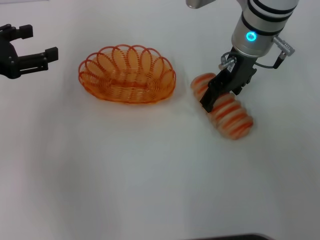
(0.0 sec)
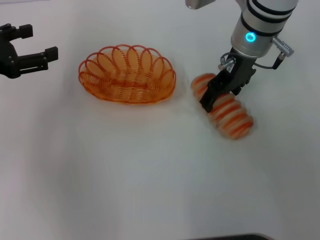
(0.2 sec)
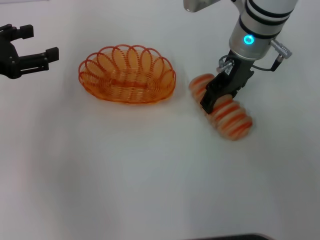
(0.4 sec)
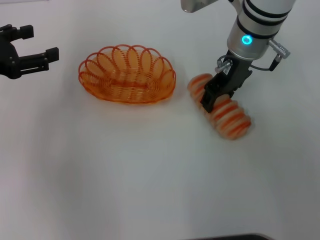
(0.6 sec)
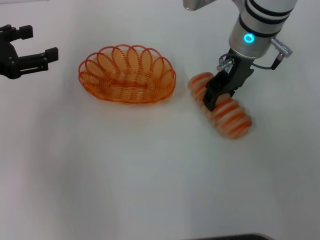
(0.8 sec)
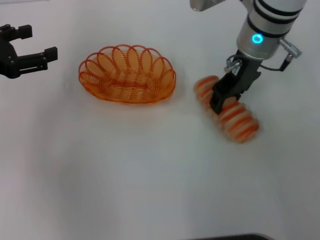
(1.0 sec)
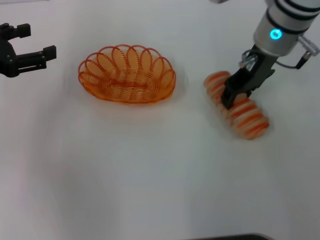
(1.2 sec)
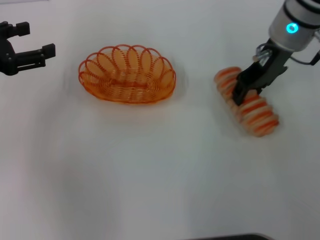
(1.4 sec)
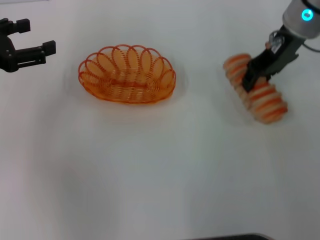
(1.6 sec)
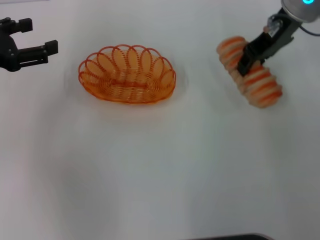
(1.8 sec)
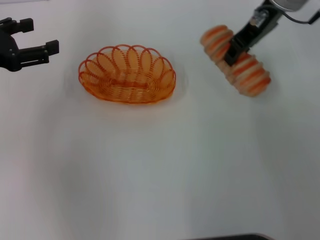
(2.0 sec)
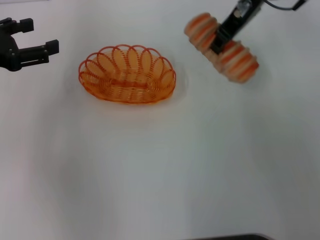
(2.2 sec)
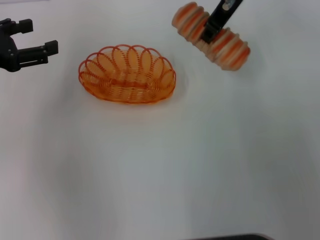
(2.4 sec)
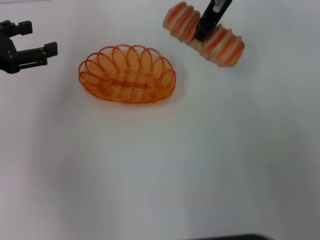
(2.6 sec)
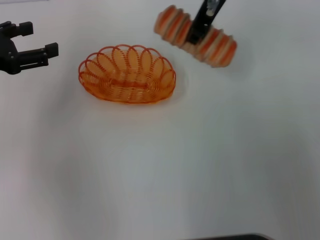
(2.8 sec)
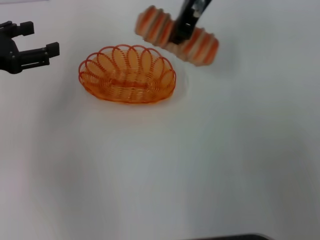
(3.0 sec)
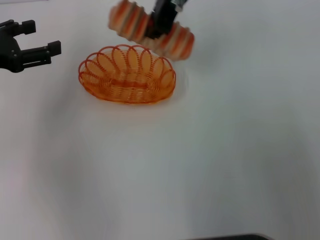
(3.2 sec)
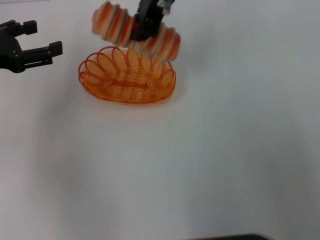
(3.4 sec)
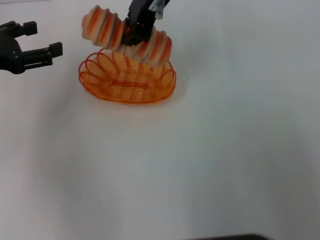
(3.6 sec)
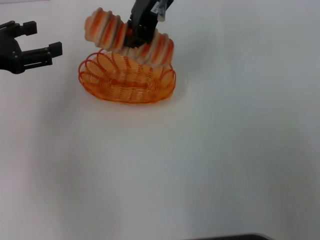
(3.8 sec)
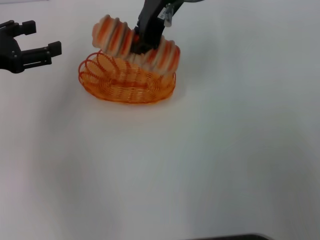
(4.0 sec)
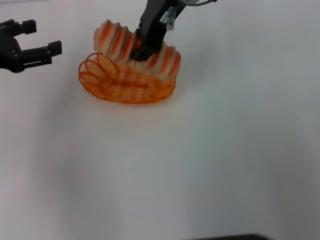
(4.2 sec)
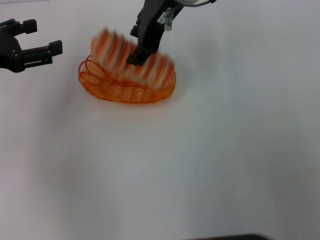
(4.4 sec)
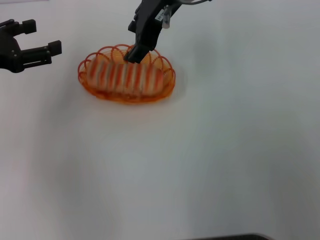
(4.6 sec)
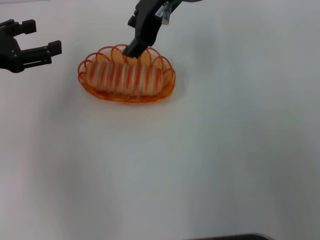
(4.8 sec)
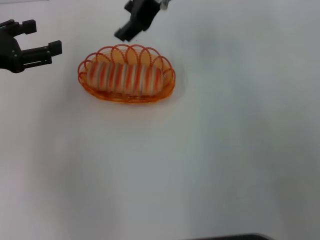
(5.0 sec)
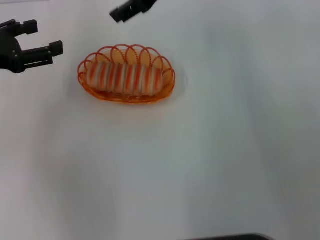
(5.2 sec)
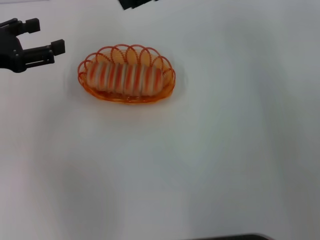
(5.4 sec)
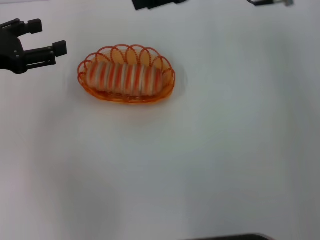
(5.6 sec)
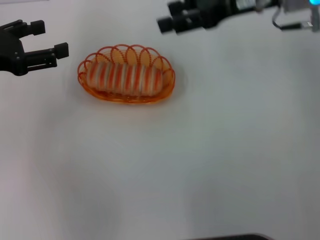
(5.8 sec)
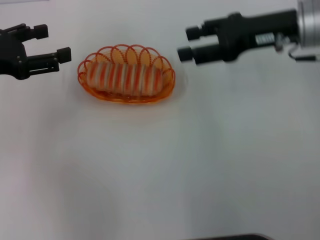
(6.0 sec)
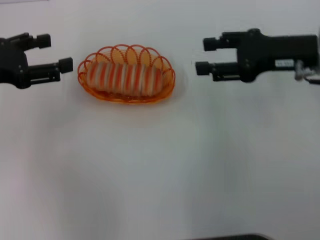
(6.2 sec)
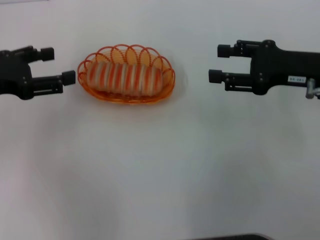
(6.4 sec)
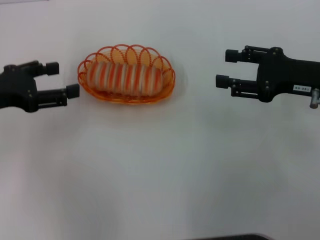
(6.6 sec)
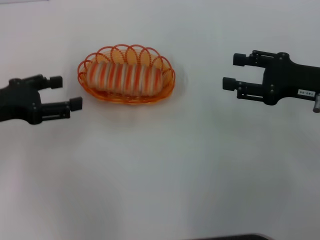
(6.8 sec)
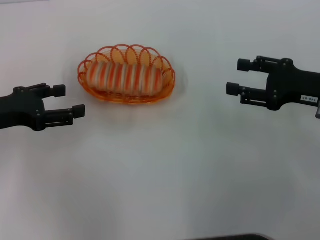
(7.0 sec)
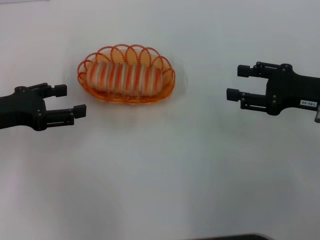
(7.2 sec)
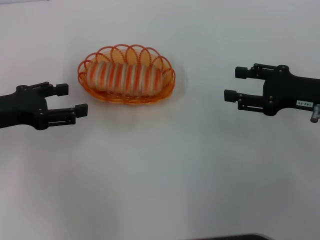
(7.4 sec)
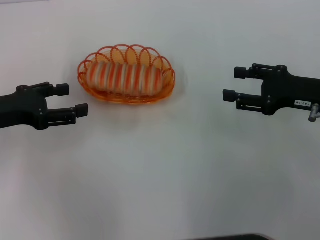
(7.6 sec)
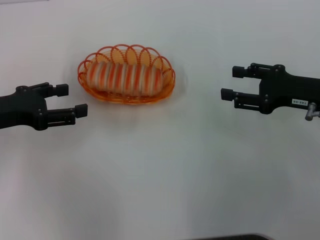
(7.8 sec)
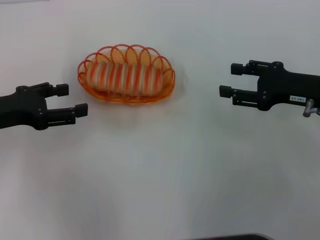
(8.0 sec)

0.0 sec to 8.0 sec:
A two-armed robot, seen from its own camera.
Step, 1.2 sec to 4.6 sec: Place the long bread into the basket with the right gripper.
0.0 sec to 1.6 sec: The right gripper travels to the right by approximately 5 cm, and closes.
1.6 sec to 3.2 sec: The right gripper goes approximately 15 cm to the left and upward.
3.2 sec to 4.8 sec: The right gripper opens its fingers.
4.8 sec to 6.4 sec: The right gripper is displaced to the right, downward and backward by some 25 cm.
6.4 sec to 8.0 sec: The grippers make only small movements.
